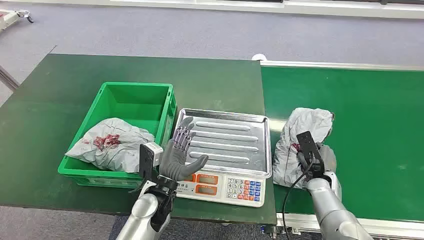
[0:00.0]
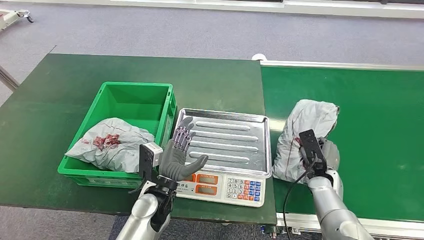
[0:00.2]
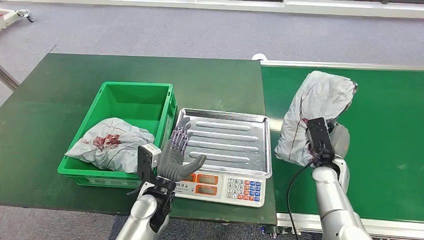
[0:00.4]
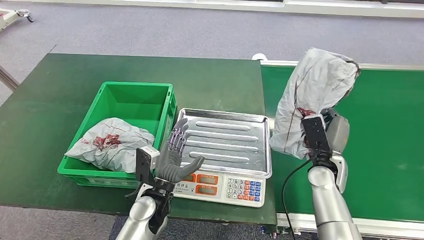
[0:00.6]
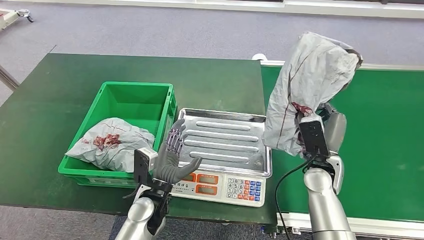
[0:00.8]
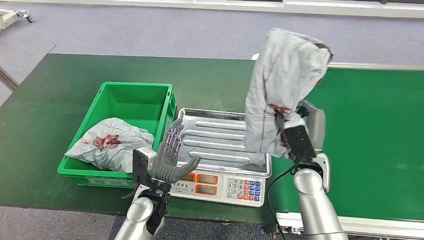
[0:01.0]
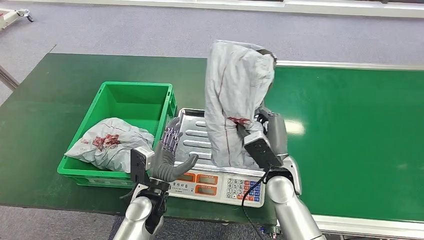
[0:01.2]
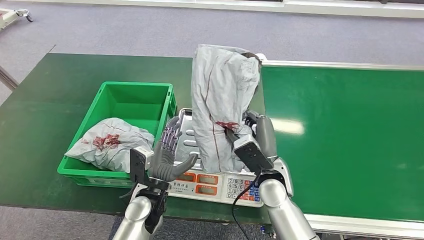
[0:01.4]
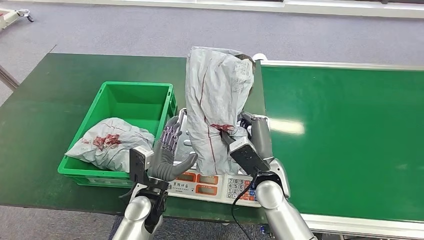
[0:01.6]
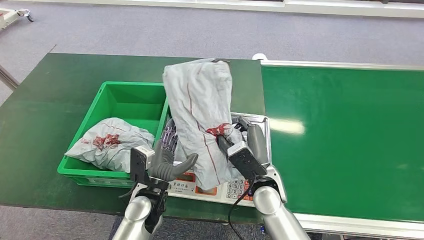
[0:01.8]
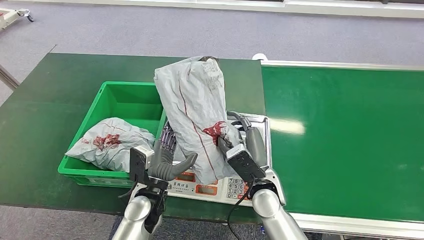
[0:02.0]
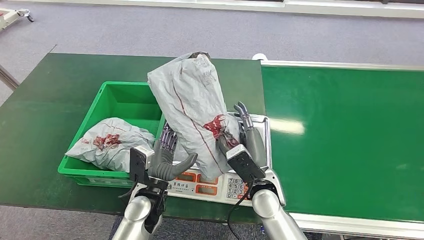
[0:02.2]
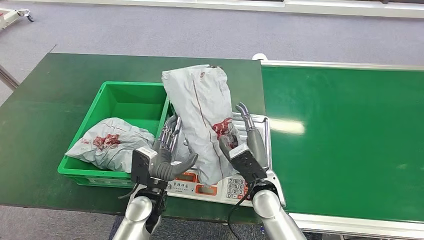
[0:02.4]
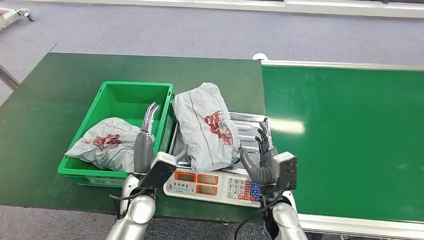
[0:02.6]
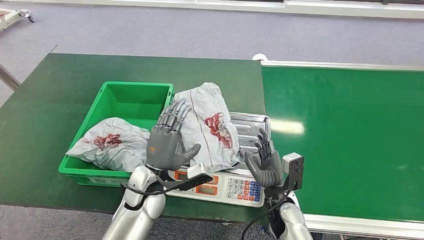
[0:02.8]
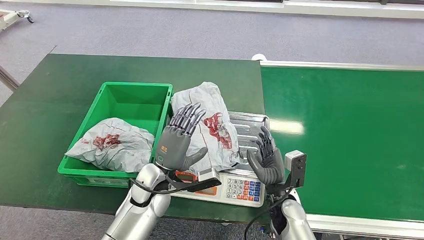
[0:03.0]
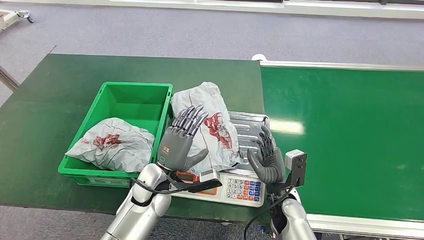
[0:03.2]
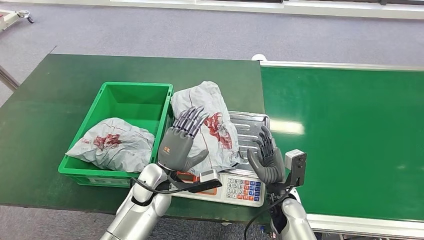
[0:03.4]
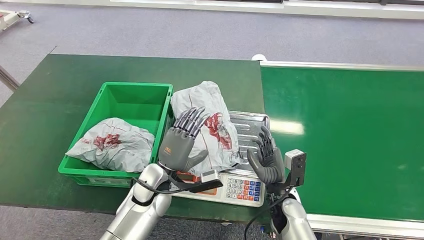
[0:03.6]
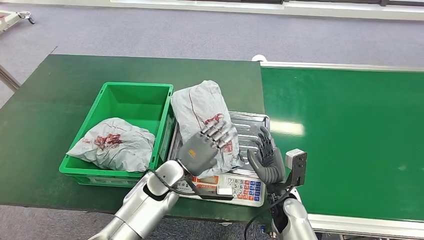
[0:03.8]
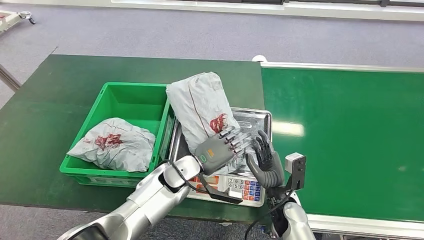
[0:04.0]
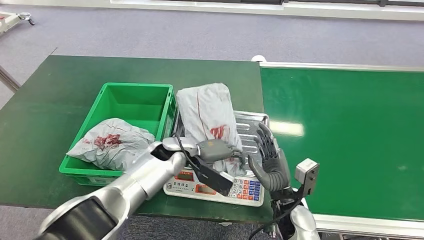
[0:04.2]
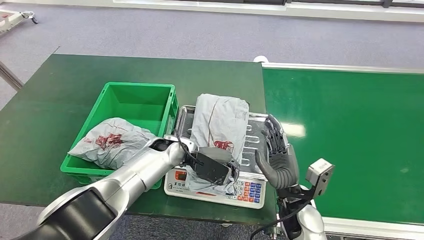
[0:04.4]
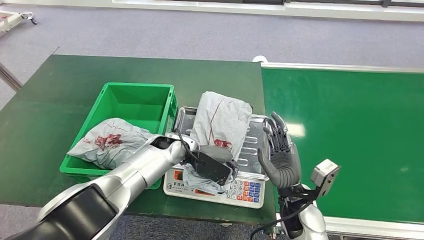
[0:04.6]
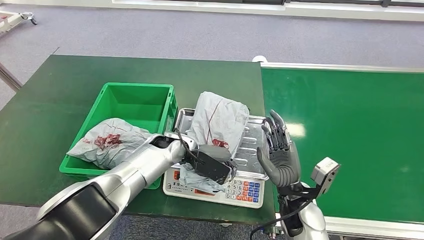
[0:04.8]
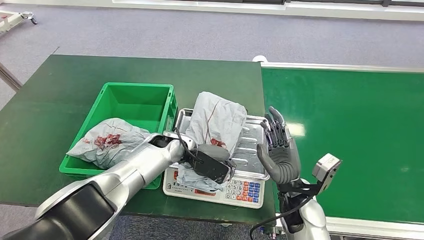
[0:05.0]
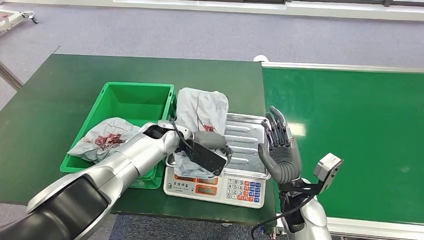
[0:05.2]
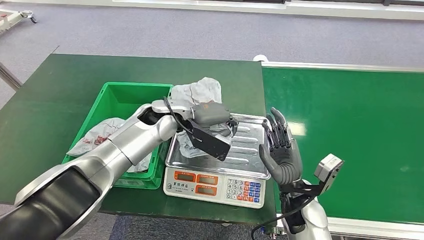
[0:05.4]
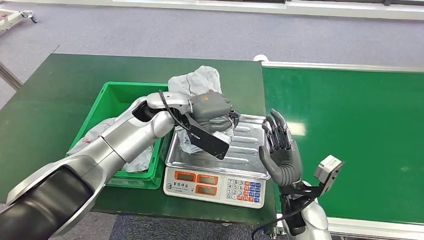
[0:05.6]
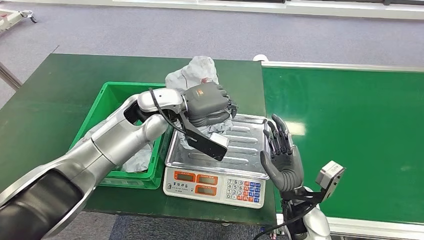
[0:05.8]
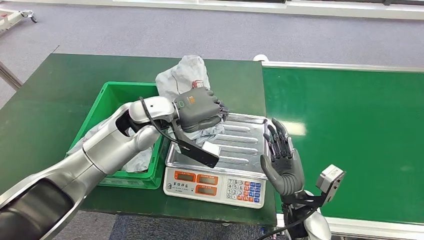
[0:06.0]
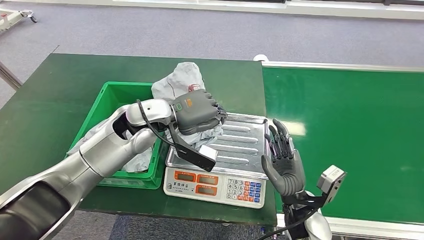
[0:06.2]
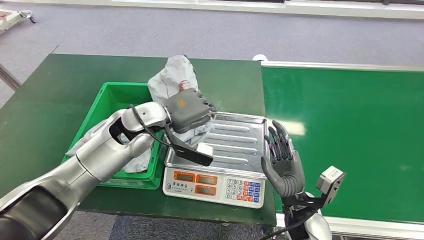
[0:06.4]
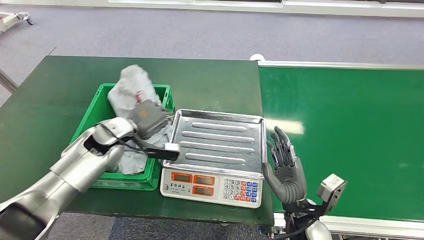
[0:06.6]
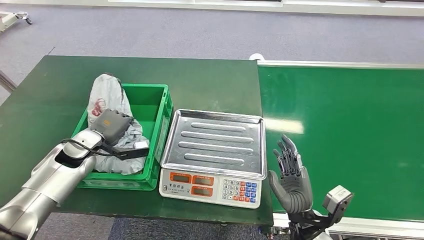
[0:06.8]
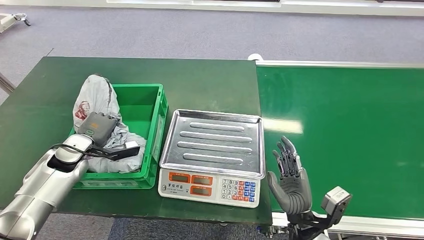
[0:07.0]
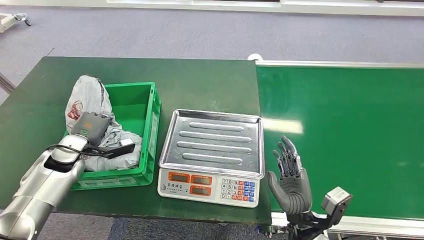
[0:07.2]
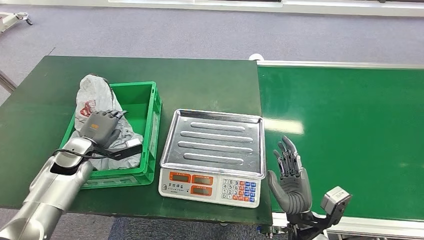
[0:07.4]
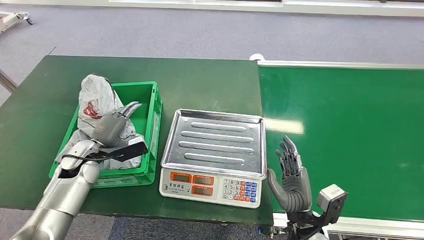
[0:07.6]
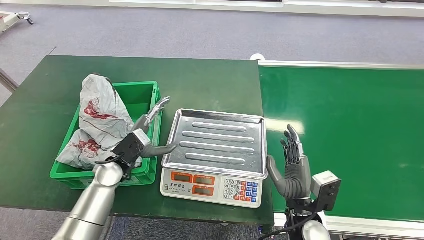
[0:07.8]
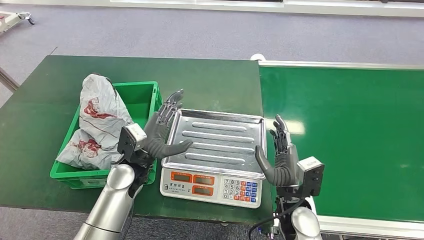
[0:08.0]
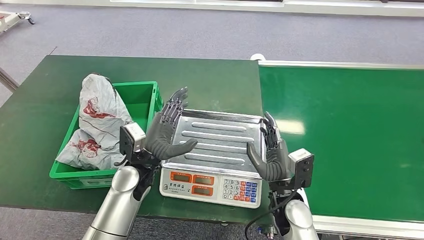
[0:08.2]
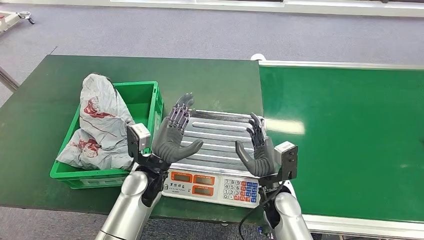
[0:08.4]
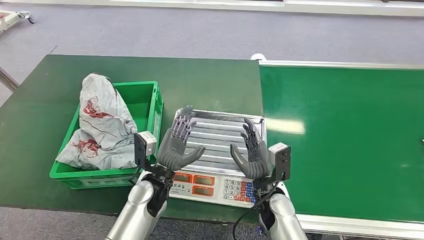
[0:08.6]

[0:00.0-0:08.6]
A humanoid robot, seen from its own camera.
Step, 0:00.0 to 0:01.6: Pick up the package from the conveyor belt.
Step, 0:01.8 to 0:03.2: Place the package onto the inbound machine.
Step, 0:03.6 to 0:06.2: Pick up the package from the inbound machine.
Step, 0:06.6 to 0:08.4: Place the package into the parcel locker.
0:01.4 to 0:02.8: The right hand goes about 10 cm downward.
